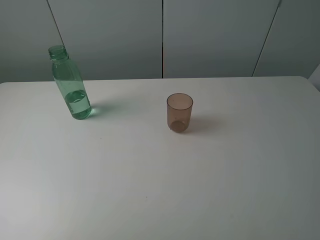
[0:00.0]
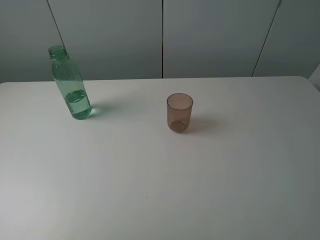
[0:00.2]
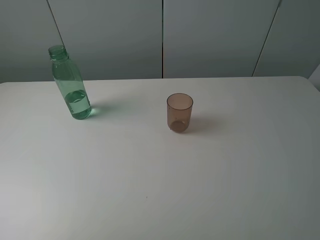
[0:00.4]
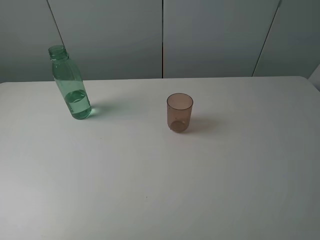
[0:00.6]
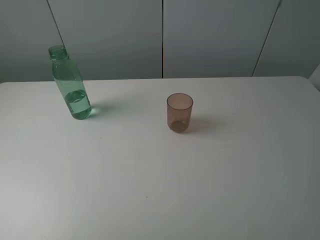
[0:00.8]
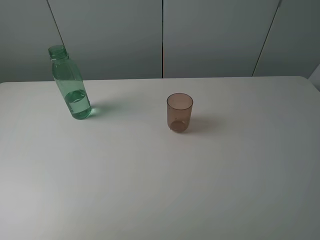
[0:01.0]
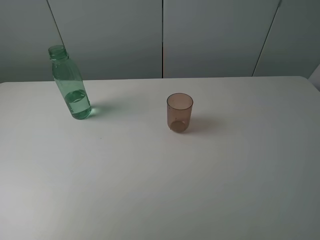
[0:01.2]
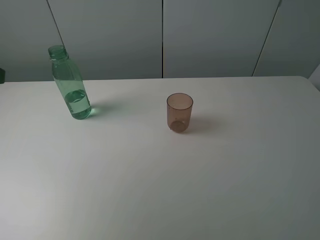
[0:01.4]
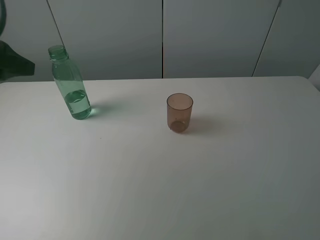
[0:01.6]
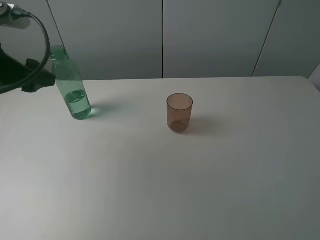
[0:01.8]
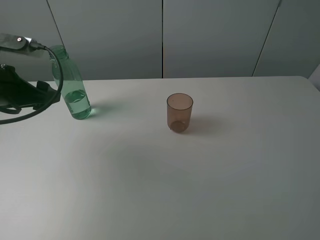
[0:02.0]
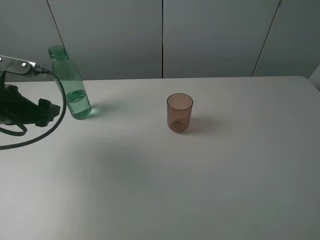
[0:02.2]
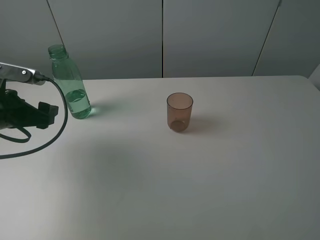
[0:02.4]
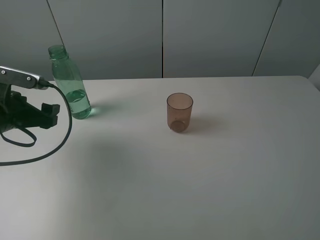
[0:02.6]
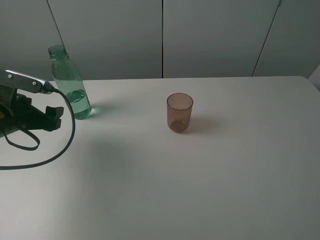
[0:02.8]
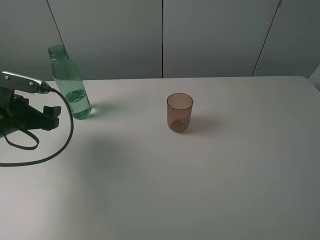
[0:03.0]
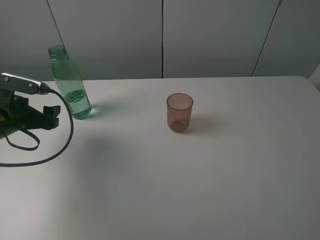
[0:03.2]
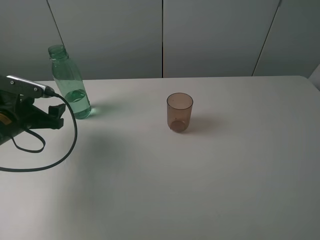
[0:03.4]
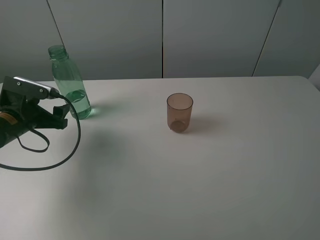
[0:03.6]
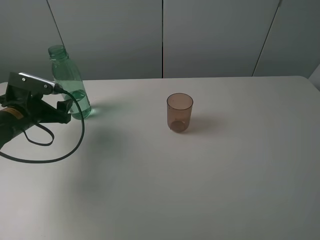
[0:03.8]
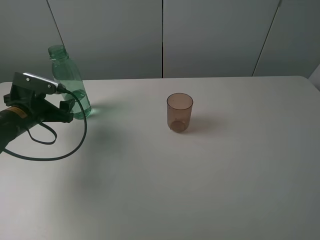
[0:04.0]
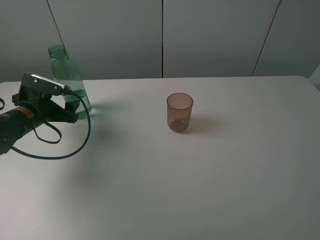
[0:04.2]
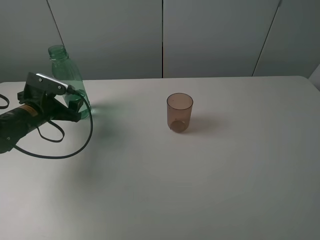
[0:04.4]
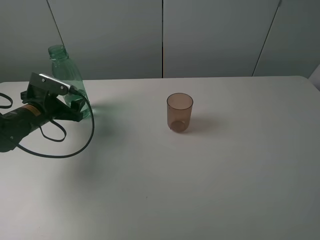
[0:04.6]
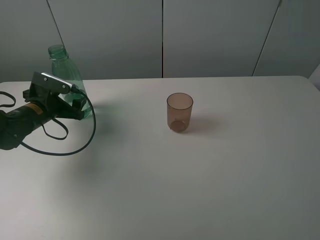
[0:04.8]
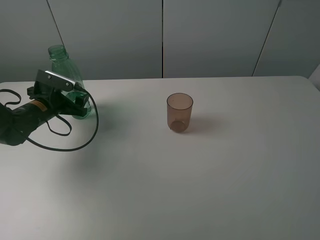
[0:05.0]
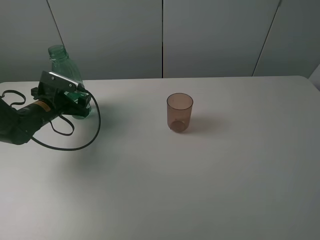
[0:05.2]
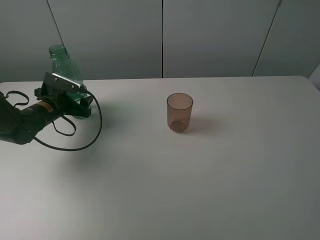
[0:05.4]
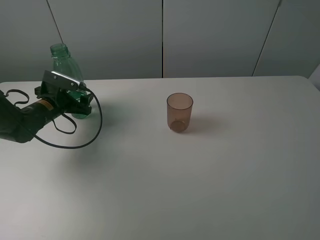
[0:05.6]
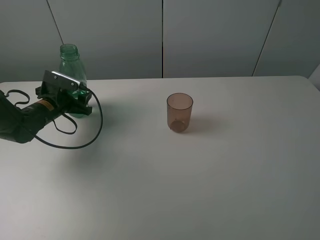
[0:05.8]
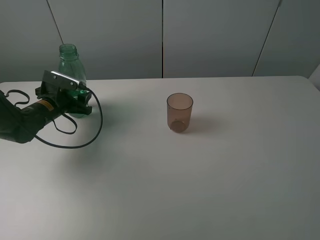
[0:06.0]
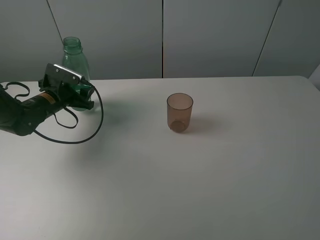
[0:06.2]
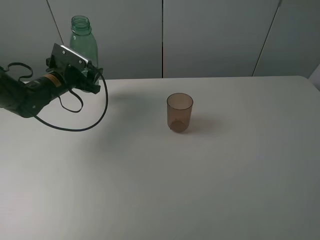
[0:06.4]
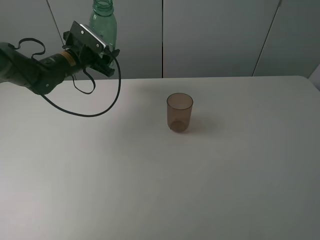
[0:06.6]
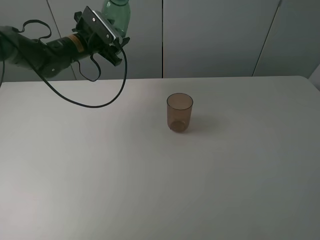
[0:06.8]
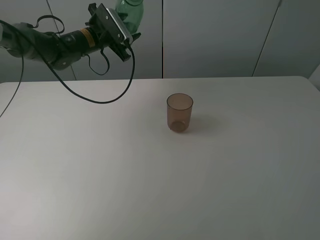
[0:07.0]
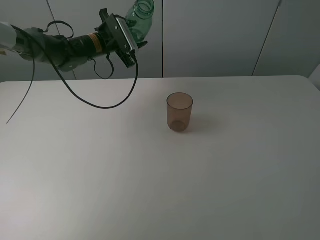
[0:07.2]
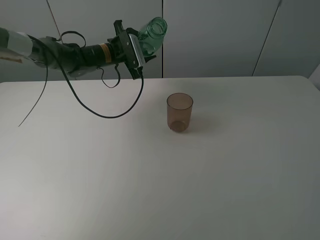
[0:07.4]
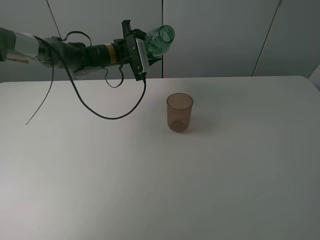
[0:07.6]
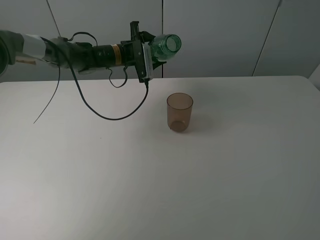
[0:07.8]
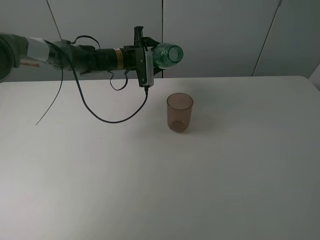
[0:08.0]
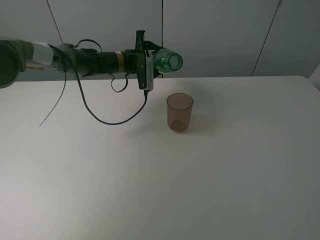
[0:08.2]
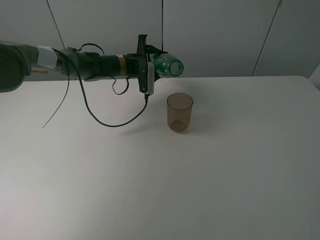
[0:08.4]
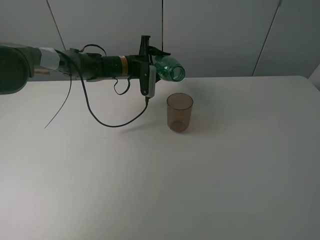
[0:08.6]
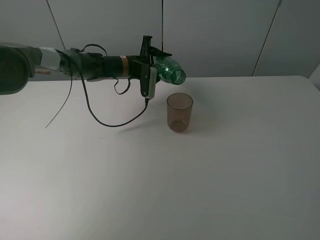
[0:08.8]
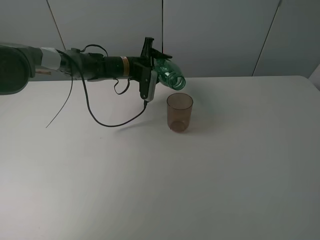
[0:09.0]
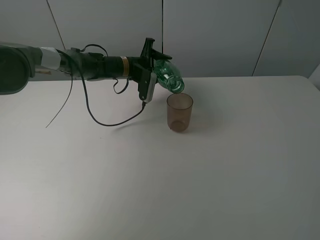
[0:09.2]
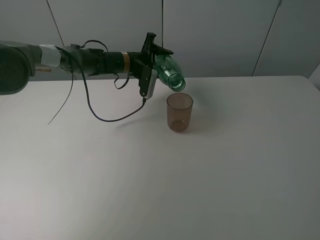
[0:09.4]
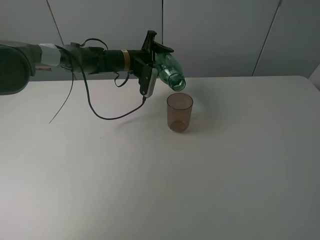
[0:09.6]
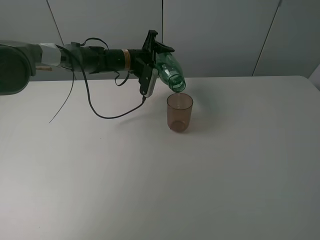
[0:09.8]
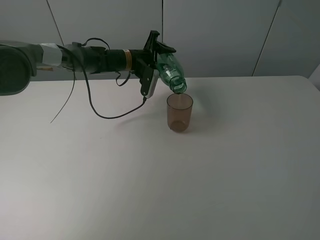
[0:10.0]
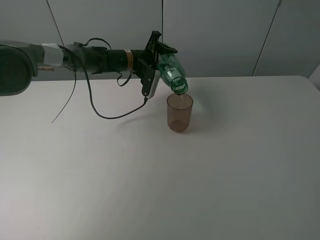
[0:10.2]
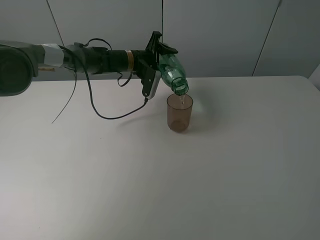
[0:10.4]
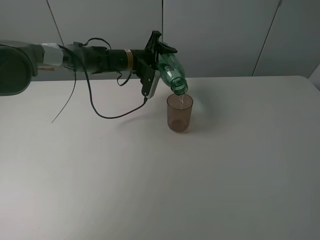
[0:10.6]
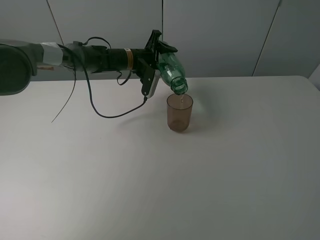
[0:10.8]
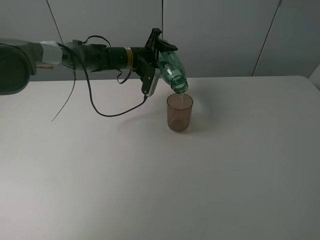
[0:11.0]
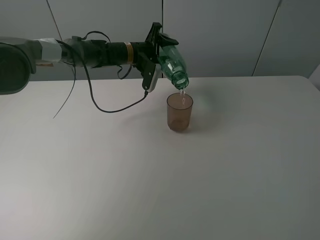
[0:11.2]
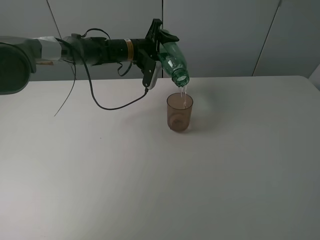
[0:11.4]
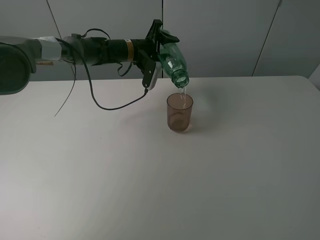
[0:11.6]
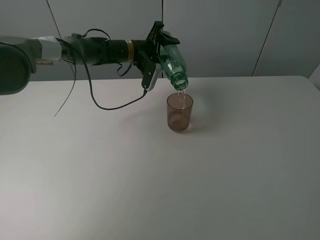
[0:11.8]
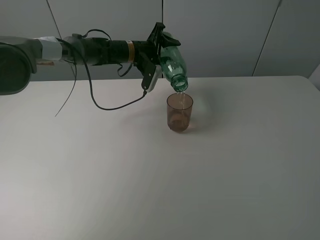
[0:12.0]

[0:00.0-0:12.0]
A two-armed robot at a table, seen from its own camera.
Task of the whole recording: pick up the bottle filled with water and pour it into the pink cup.
Step, 0:00.0 to 0:05.8: Grasp the green bottle with the left gripper.
0:00.0 to 0:01.6: The left gripper is displaced forward by about 20 cm.
0:01.6 to 0:03.0: The left gripper moves downward, approximately 15 cm.
0:03.0 to 0:04.4: The left gripper travels forward by some 5 cm.
0:04.4 to 0:06.0: The left gripper moves about 5 cm, and closes its fingers.
0:06.0 to 0:07.6: The left gripper is displaced to the right, forward and upward by some 20 cm.
0:07.6 to 0:09.0: The left gripper changes place by approximately 5 cm.
0:09.0 to 0:10.4: The grippers move only a little.
0:10.4 to 0:12.0: The grippers stay close to where they were, moving slightly.

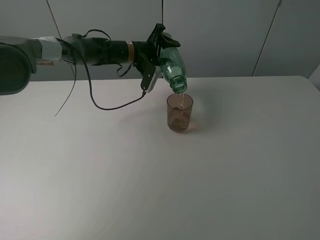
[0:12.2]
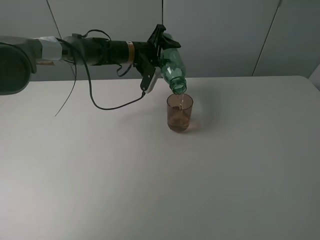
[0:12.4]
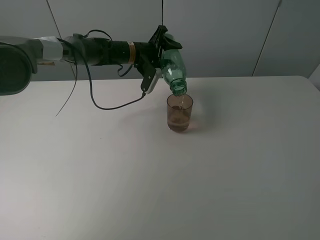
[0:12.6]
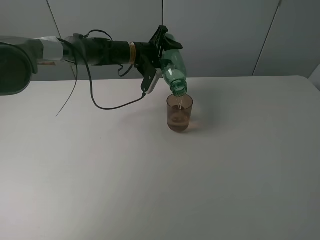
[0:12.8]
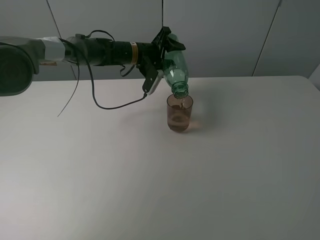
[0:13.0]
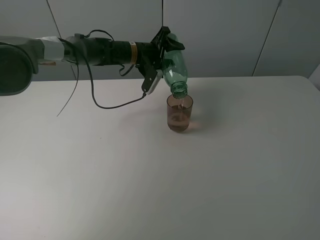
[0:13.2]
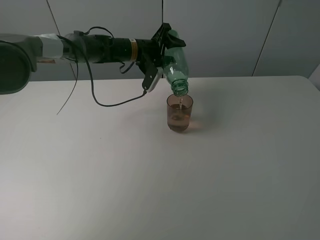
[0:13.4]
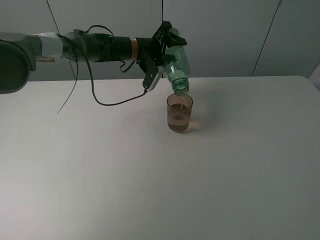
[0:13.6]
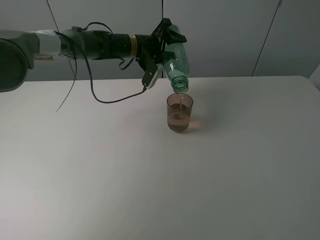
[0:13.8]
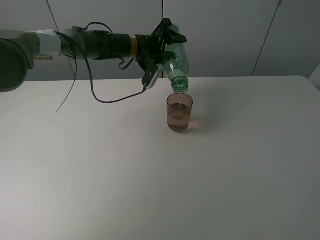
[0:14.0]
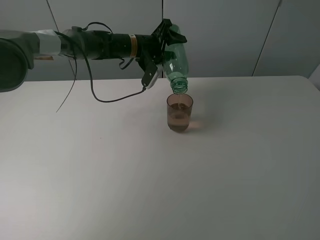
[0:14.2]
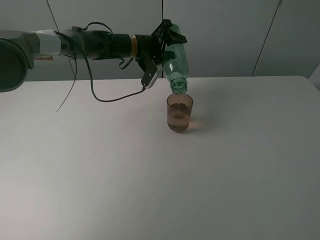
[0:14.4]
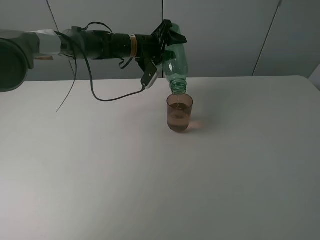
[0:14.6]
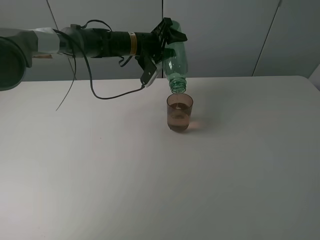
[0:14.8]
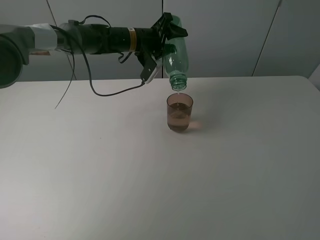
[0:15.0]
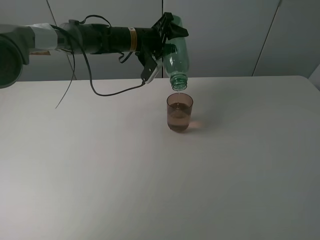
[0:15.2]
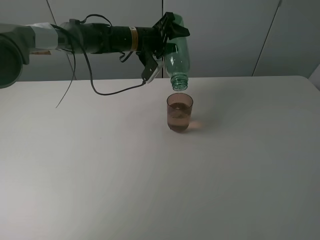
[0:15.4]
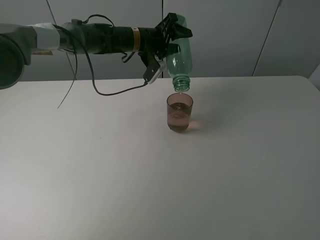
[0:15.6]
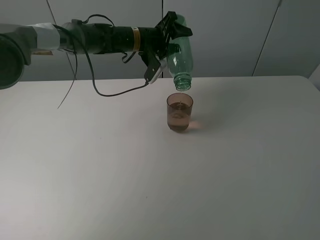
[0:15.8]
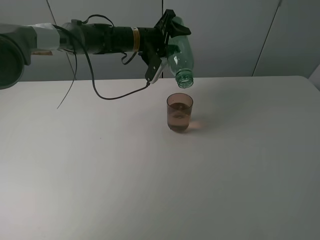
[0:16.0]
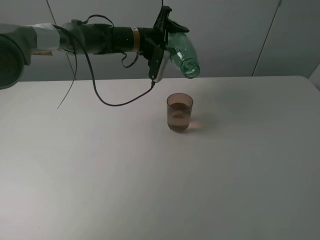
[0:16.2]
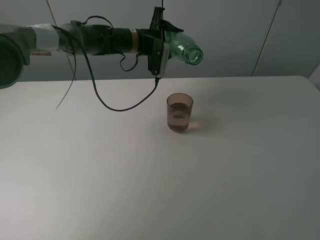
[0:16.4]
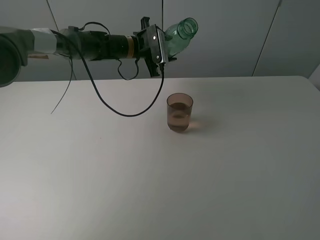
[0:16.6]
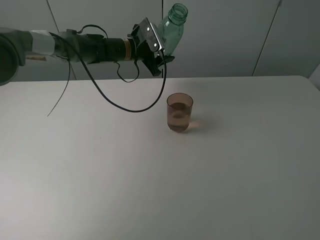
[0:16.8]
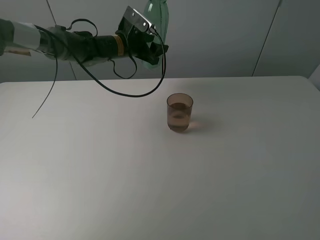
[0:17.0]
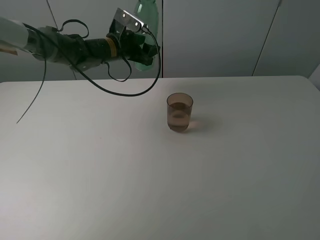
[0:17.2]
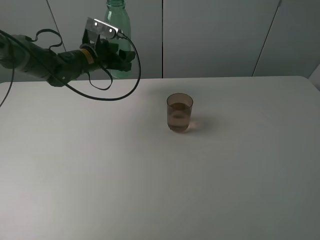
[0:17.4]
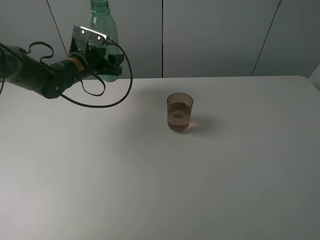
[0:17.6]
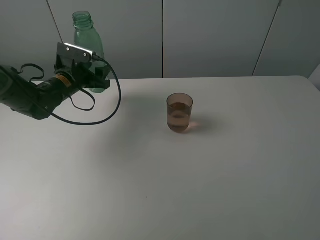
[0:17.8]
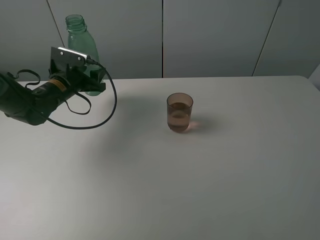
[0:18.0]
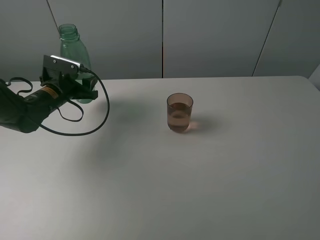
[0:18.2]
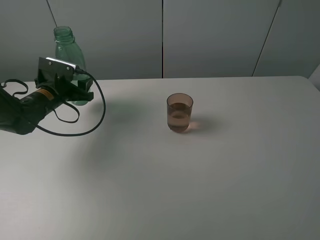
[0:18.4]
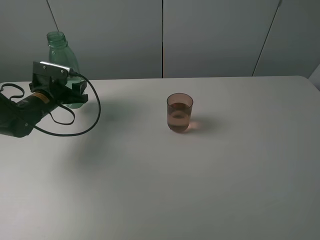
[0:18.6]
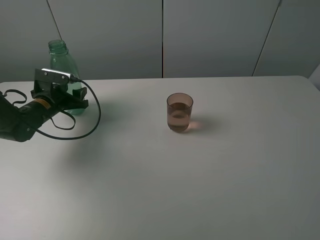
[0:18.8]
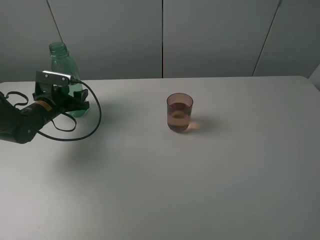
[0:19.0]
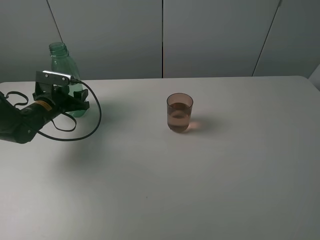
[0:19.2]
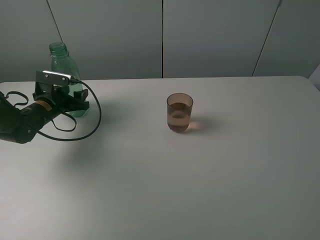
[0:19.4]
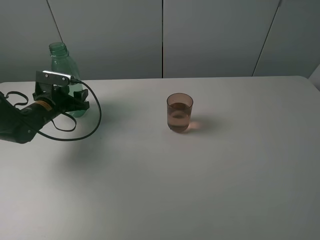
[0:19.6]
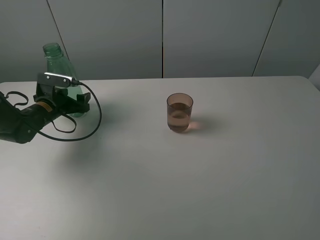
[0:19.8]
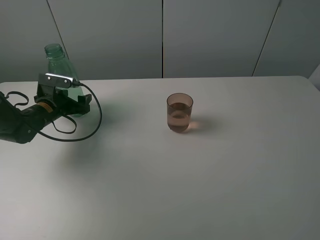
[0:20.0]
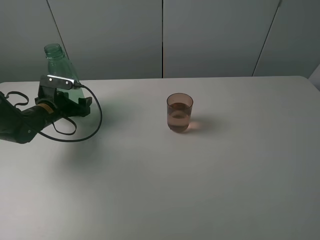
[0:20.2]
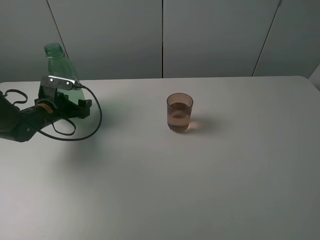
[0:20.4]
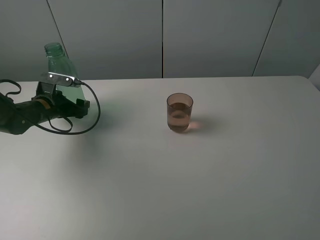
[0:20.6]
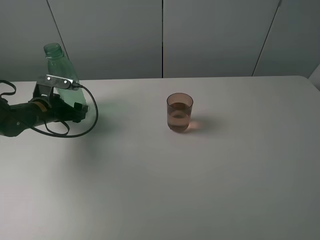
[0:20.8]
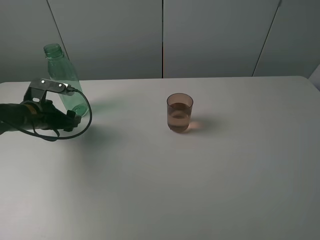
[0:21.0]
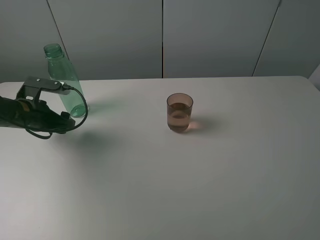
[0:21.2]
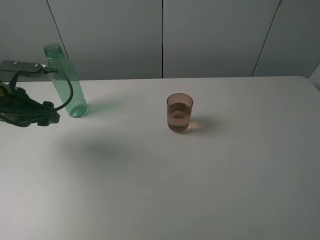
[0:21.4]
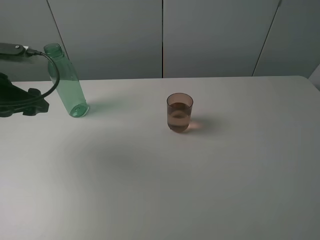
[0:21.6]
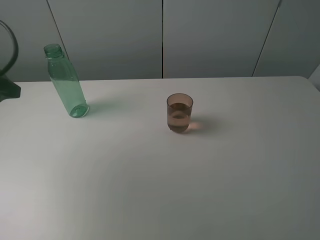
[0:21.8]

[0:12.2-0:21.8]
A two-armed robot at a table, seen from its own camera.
Task of the whole recording: pick up the bottle filled with water and pour it into the pink cup.
Step, 0:12.2 to 0:16.2: Pour water from green bottle to pink cup with the left gripper.
Step, 0:16.4 to 0:20.8: Place the green bottle with the left gripper.
0:12.2 to 0:15.4: There are only small adjustments of the grippers.
0:15.4 to 0:17.0: The left gripper moves to the left, about 5 cm.
0:17.0 to 0:18.6: The left gripper moves to the left, backward and downward, about 25 cm.
0:18.6 to 0:20.2: The left gripper opens up.
0:20.2 to 0:21.8: The left gripper travels upward and backward by approximately 30 cm.
